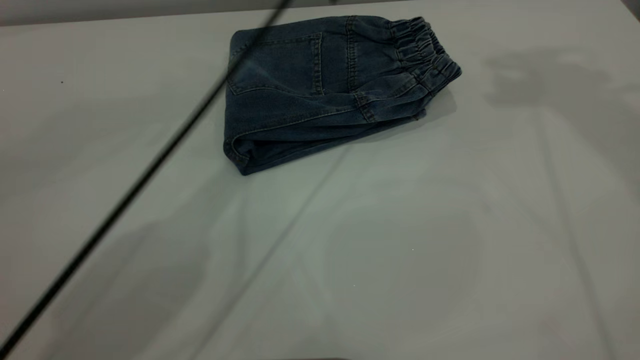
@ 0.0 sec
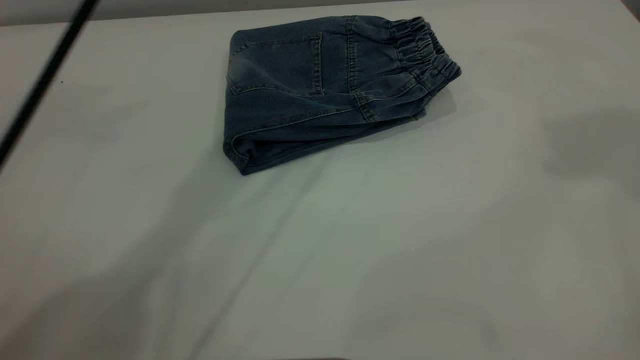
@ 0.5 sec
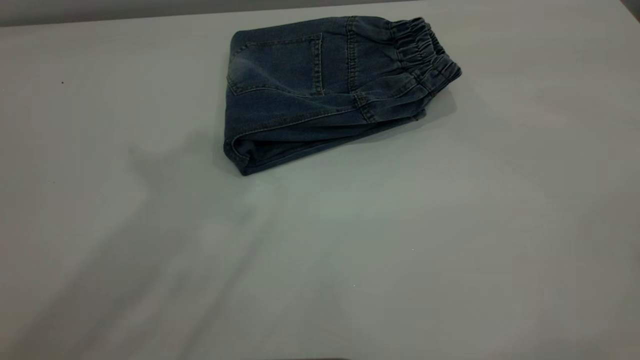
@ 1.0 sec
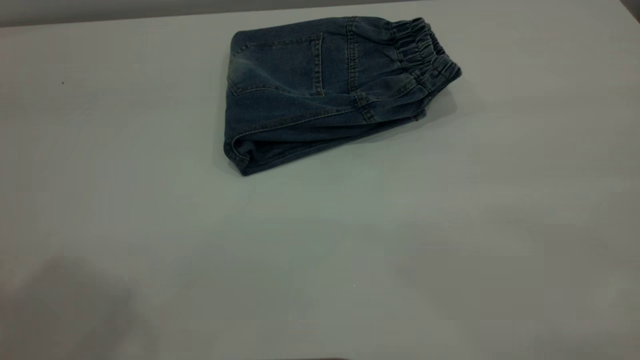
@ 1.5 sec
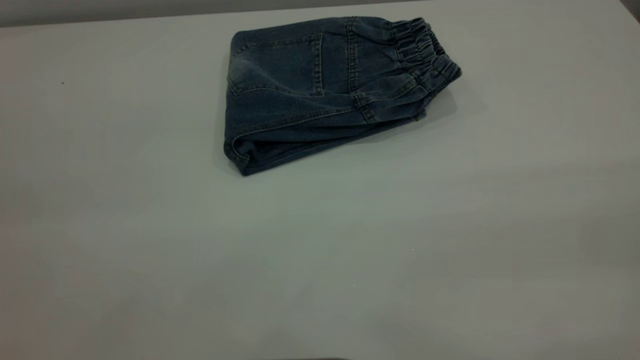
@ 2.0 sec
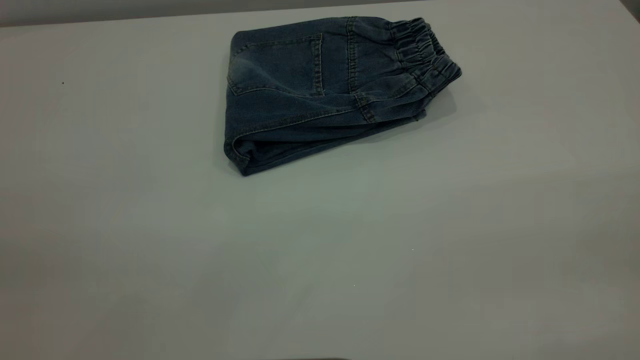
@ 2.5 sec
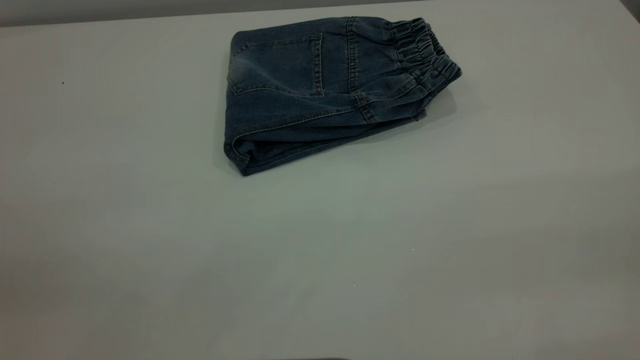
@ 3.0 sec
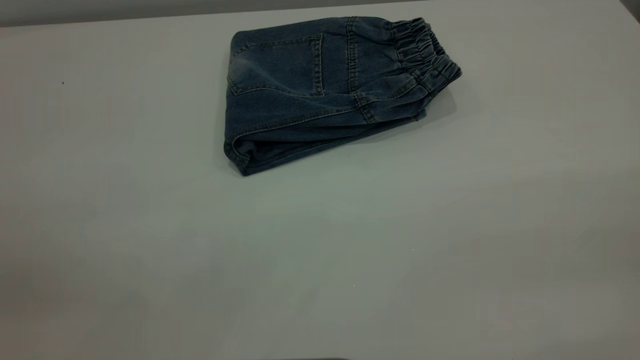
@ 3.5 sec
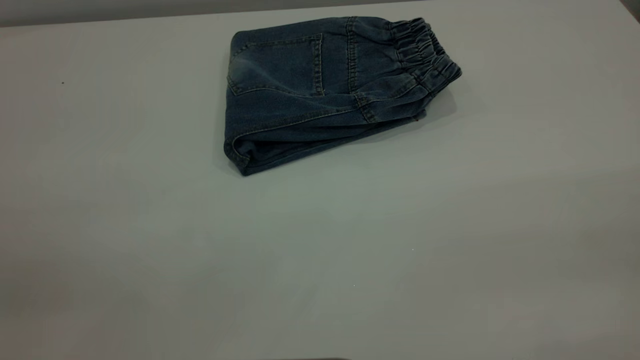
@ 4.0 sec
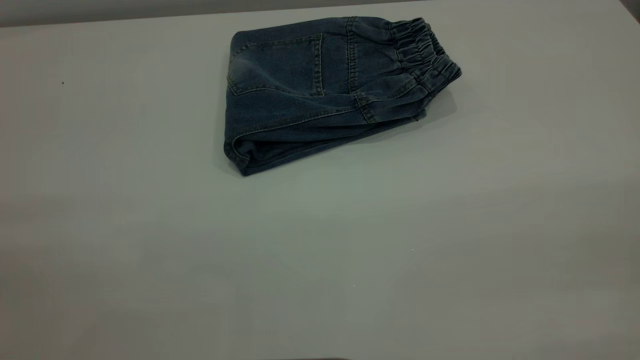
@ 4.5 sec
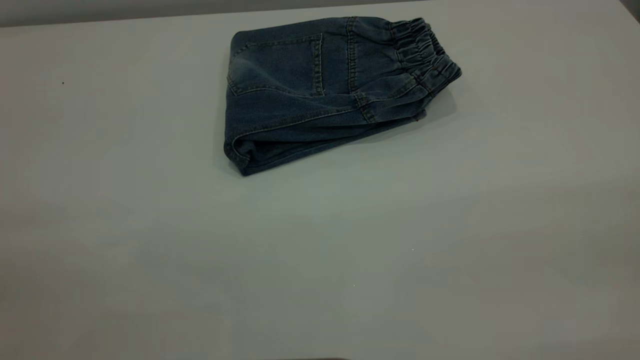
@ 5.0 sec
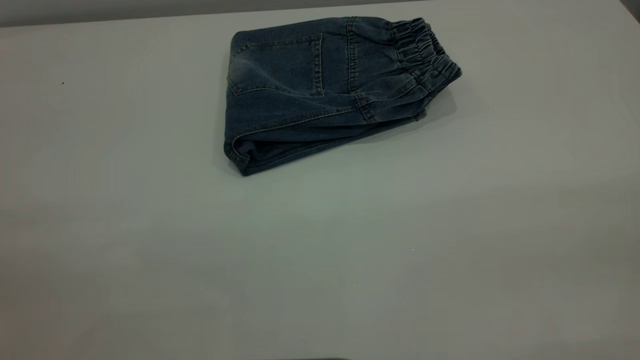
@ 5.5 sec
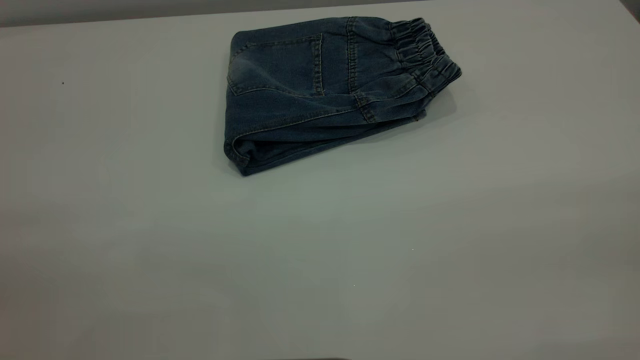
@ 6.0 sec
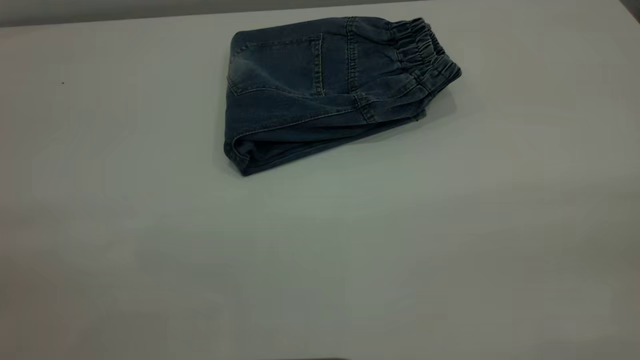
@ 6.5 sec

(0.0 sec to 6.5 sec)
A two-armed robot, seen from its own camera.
0.0 sec - 2.0 sec: The left gripper shifts roughly 50 cm backward and to the left, while the right gripper shifts about 40 cm backward.

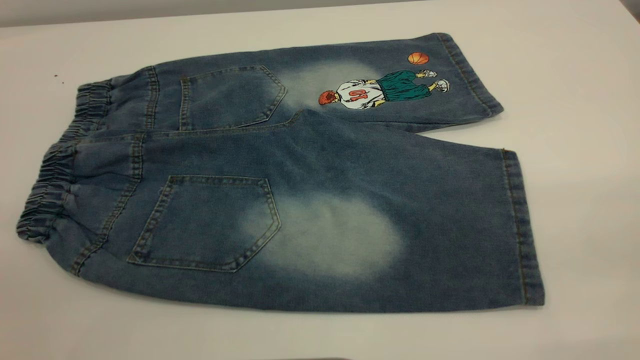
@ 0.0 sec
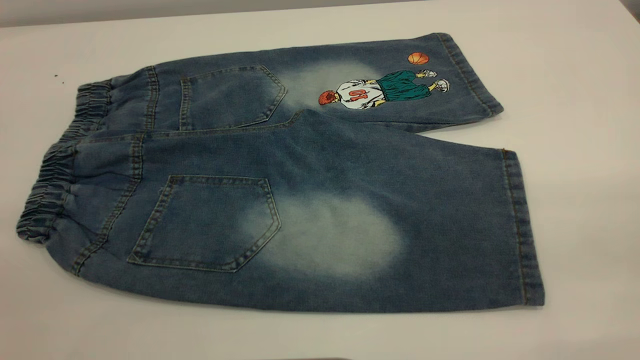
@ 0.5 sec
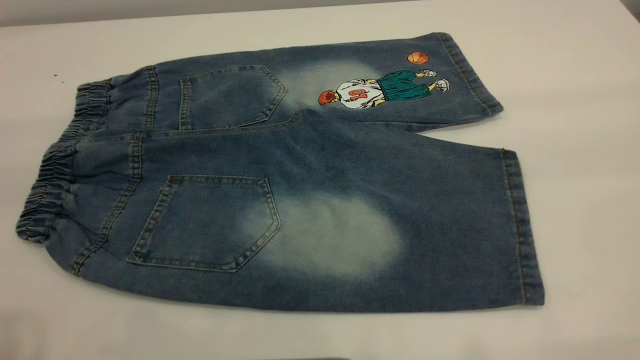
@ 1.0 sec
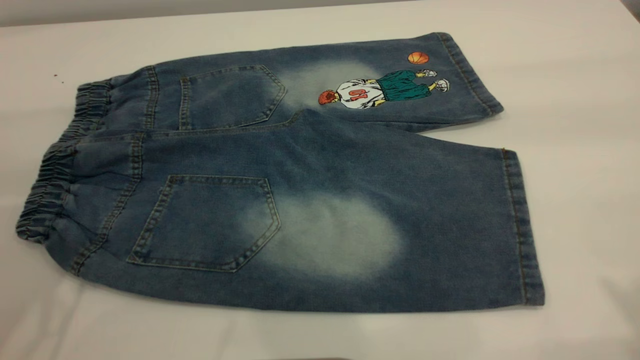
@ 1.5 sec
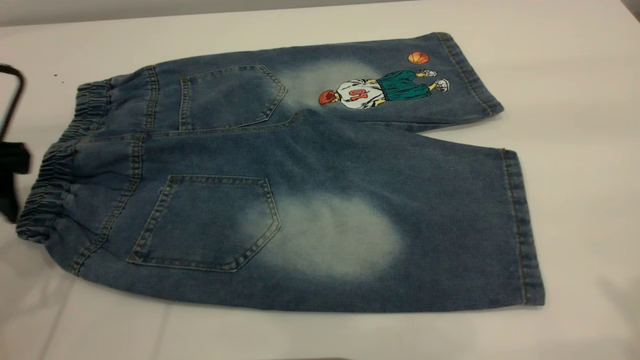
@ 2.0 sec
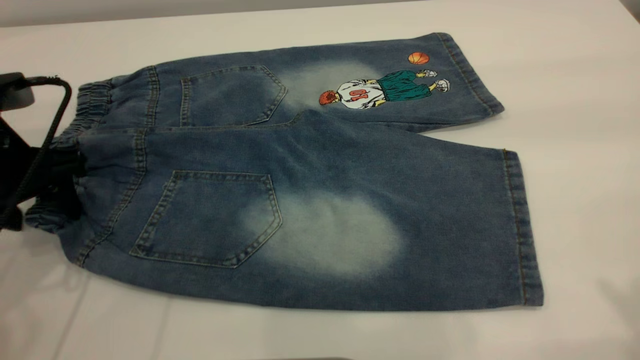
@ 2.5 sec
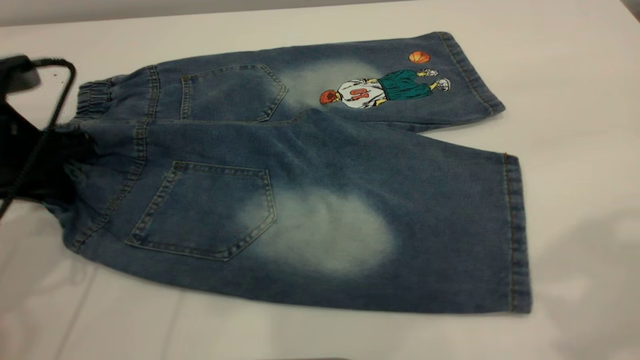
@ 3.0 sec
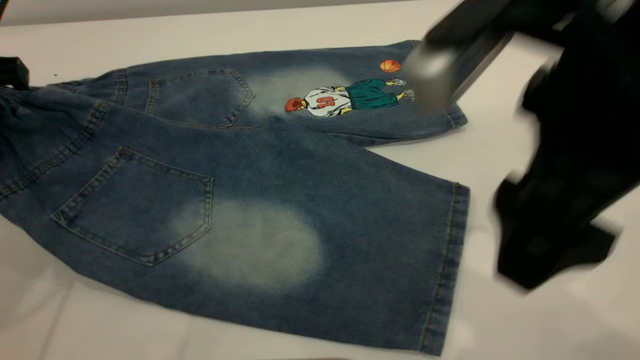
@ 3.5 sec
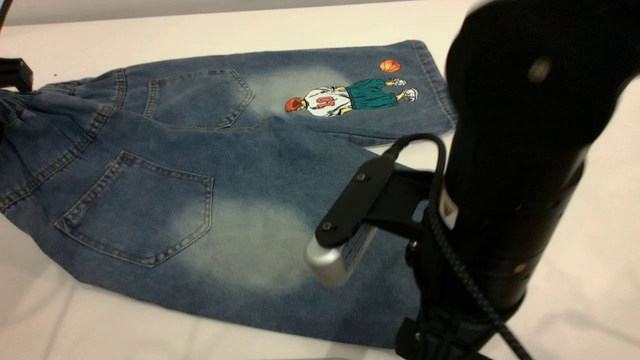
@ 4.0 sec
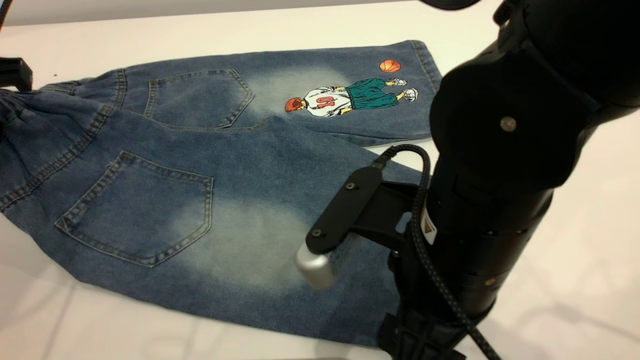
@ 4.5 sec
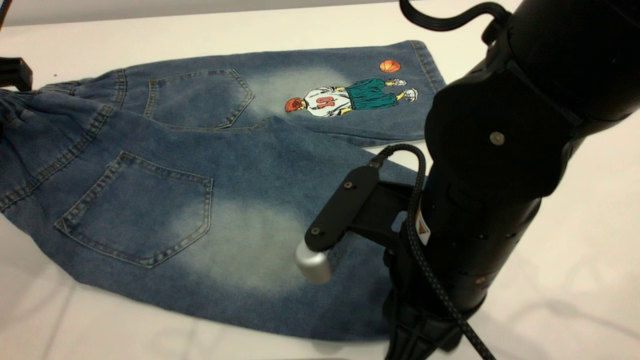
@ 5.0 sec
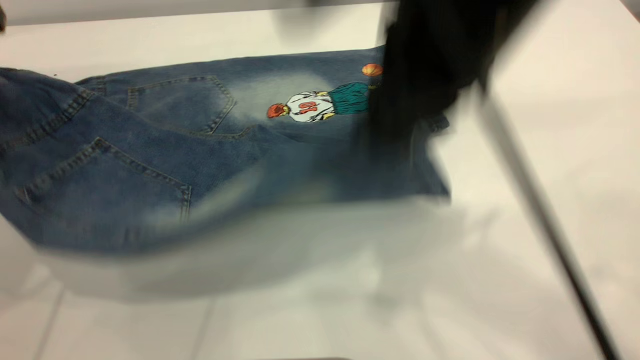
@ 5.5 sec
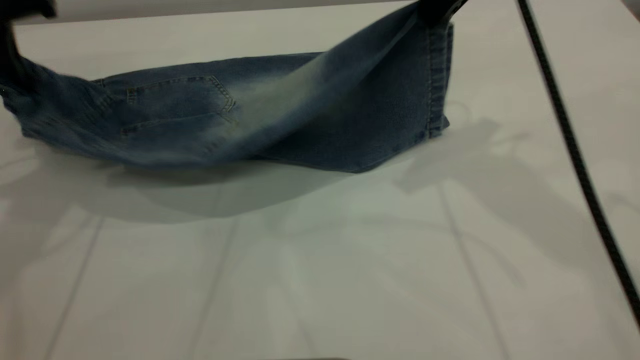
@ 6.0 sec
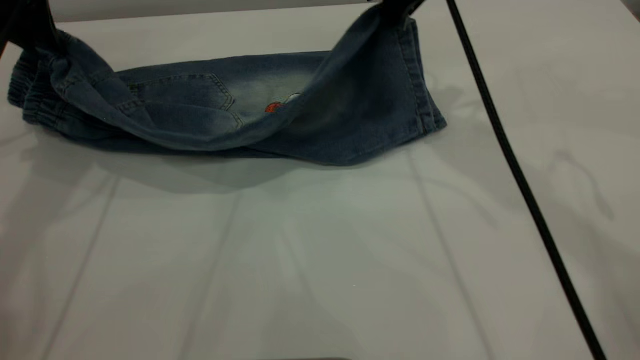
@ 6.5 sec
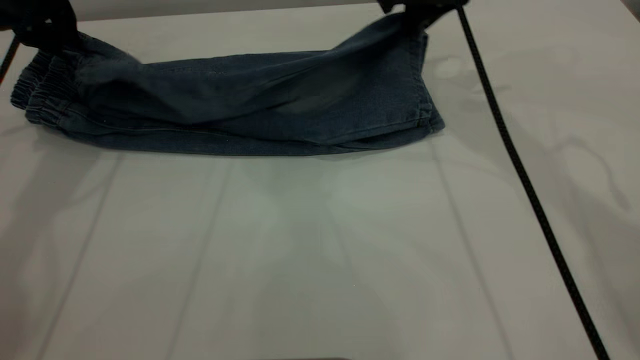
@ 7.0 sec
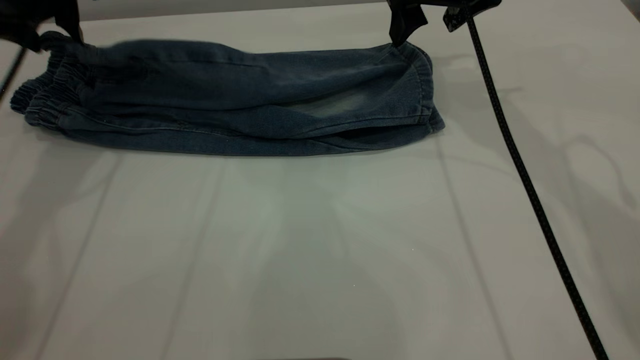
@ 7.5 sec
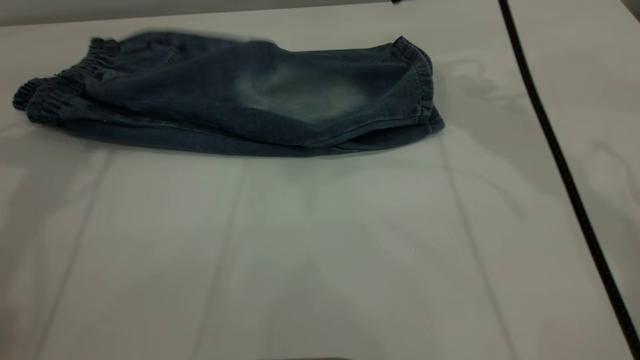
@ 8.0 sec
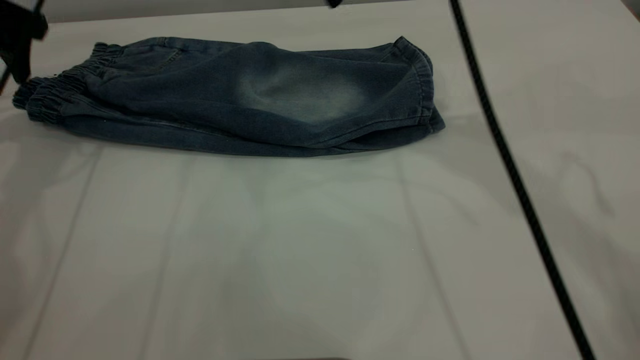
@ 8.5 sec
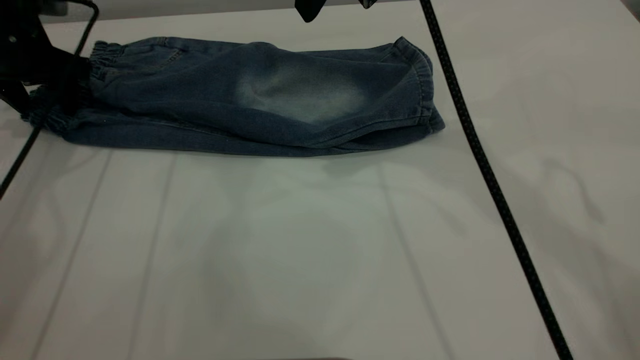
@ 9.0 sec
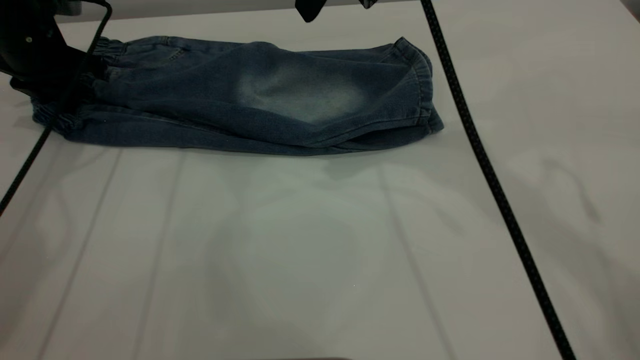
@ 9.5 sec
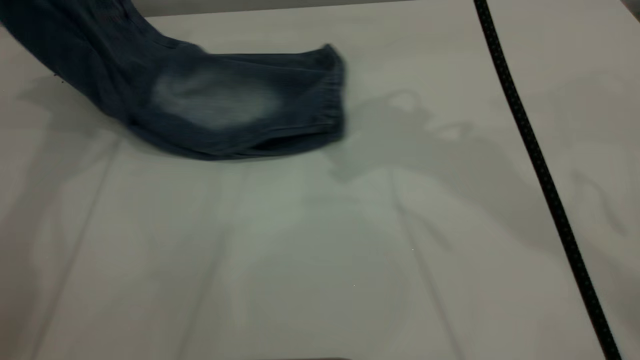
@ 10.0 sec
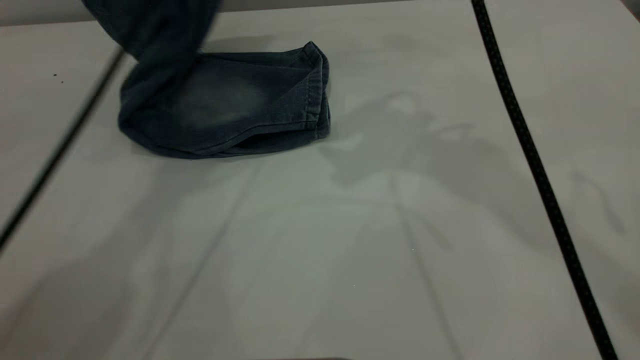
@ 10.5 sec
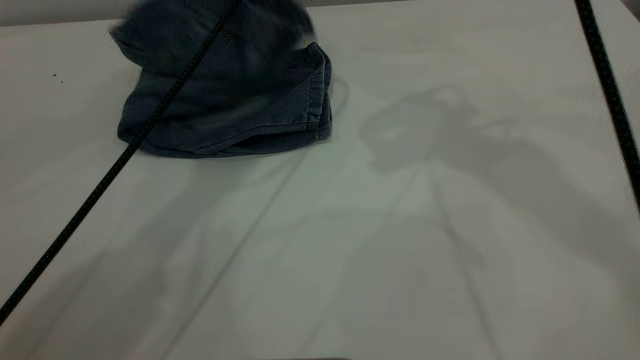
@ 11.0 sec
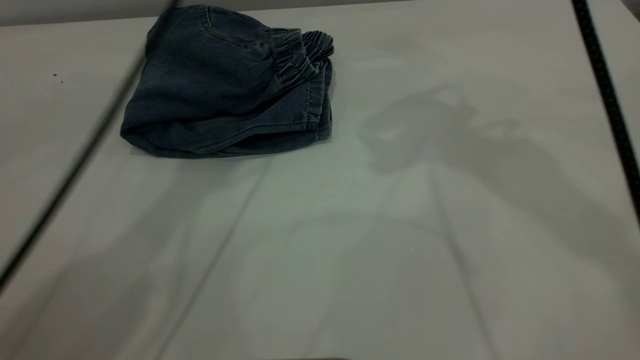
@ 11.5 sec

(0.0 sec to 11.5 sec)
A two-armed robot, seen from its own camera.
Step, 0.0 sec - 8.0 sec: Fold the bottom of the pants upward.
0.0 sec - 2.0 sec: The left gripper is displaced forward and downward by approximately 35 cm.
2.0 sec - 4.0 sec: The left gripper heads upward, covering roughly 5 cm, and closes its fingers, while the right gripper travels downward and to the left by roughly 30 cm.
4.0 sec - 6.0 sec: The left gripper moves forward, roughly 5 cm. Meanwhile the right gripper heads forward and upward, covering some 20 cm, and closes.
6.0 sec - 7.5 sec: The right gripper heads forward and downward, covering approximately 10 cm, and opens its fingers. Meanwhile the left gripper is displaced forward by roughly 10 cm, and opens up.
7.5 sec - 9.5 sec: The right gripper is displaced upward, to the left and backward by roughly 15 cm; the left gripper travels downward by roughly 10 cm, and closes.
9.5 sec - 11.5 sec: The right gripper goes about 10 cm upward. The left gripper moves to the right and upward, about 25 cm, and opens.

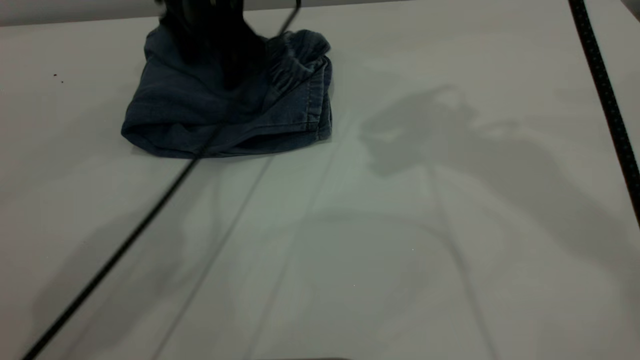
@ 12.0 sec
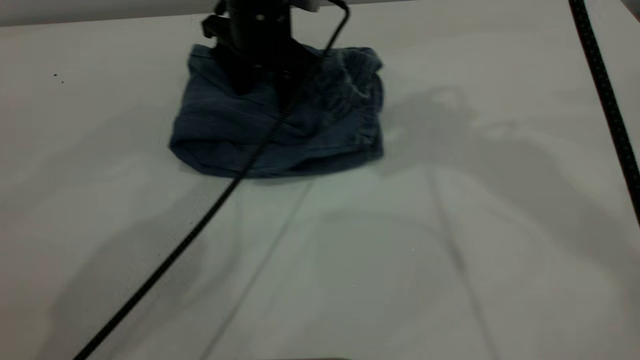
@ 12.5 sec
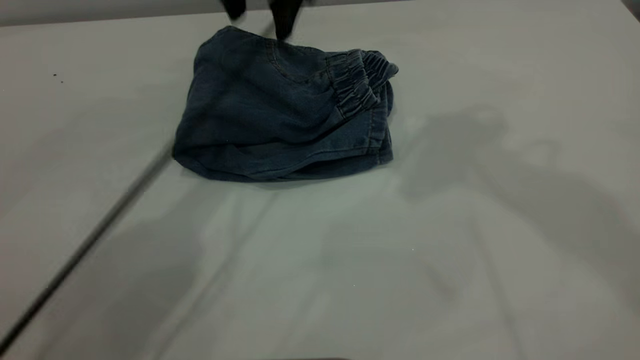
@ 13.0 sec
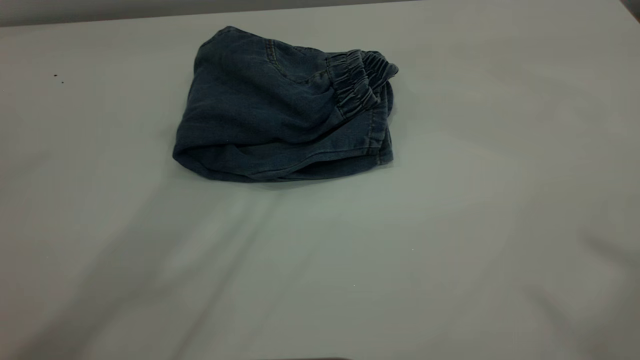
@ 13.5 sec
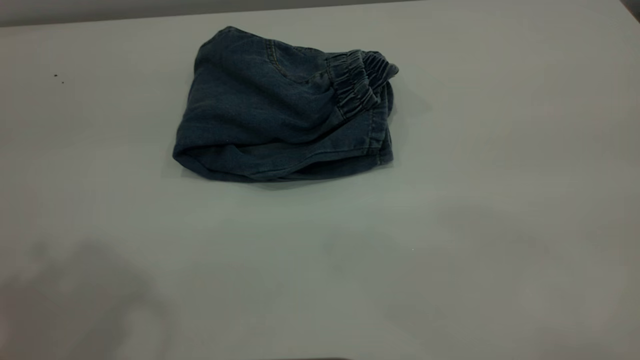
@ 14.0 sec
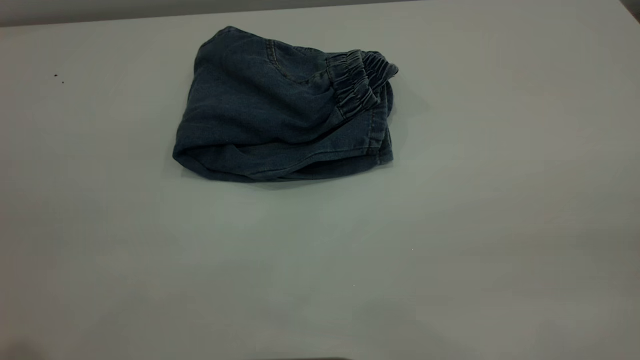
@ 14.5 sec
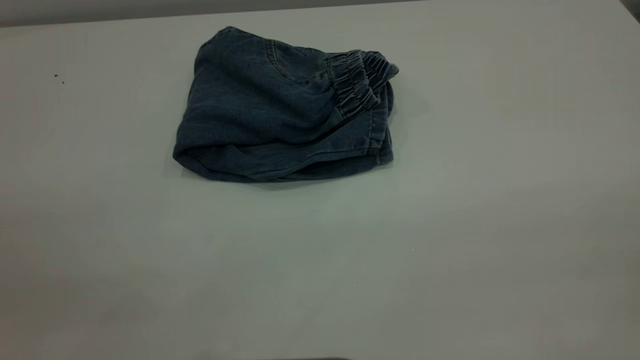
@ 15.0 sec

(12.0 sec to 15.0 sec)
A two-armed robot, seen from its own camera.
12.0 sec - 13.5 sec: The left gripper is displaced upward and backward by some 35 cm; the right gripper travels backward, upward and to the right by roughly 30 cm.
